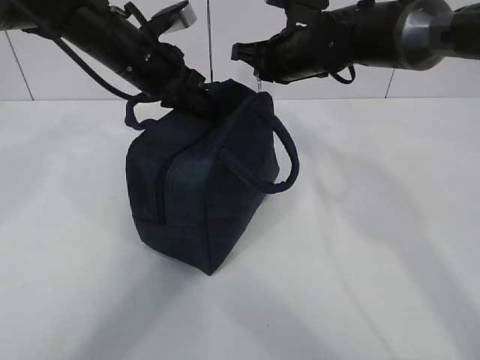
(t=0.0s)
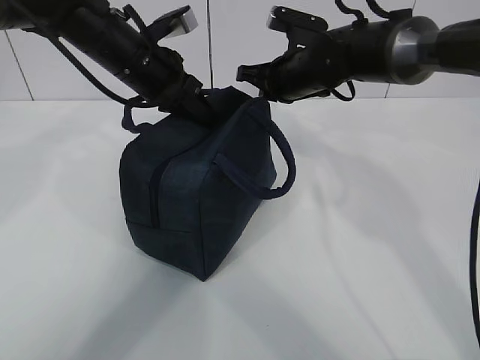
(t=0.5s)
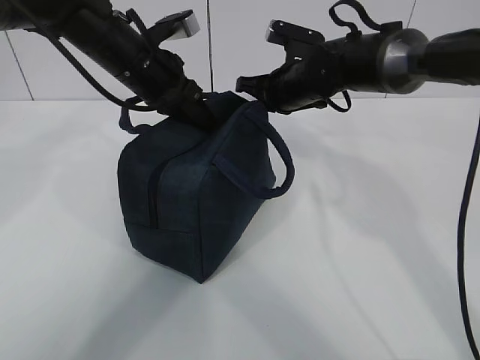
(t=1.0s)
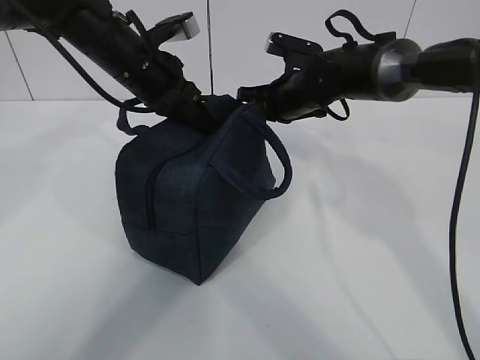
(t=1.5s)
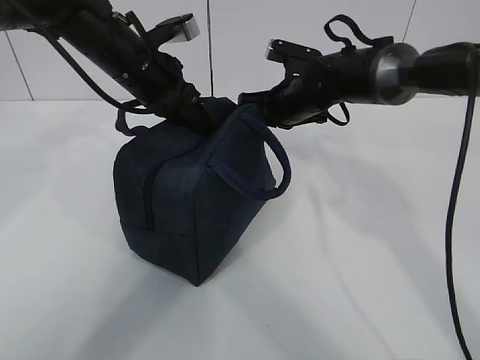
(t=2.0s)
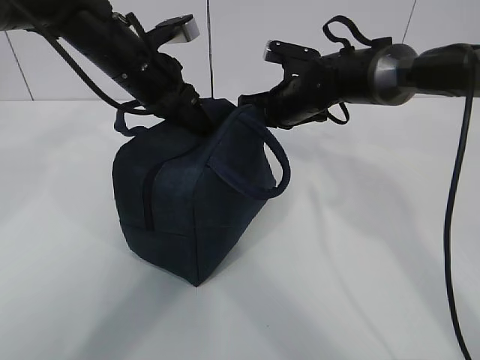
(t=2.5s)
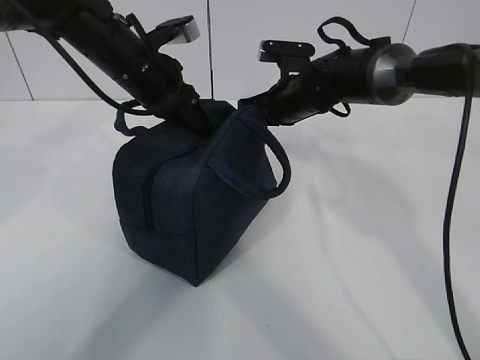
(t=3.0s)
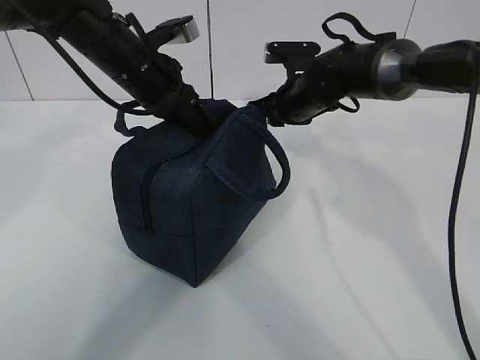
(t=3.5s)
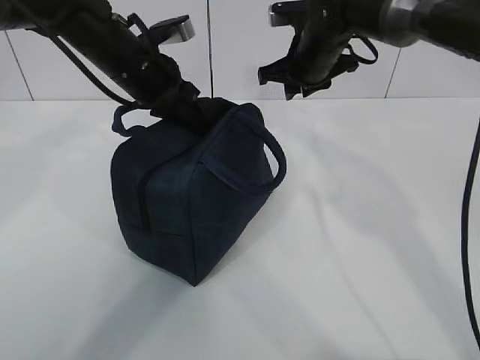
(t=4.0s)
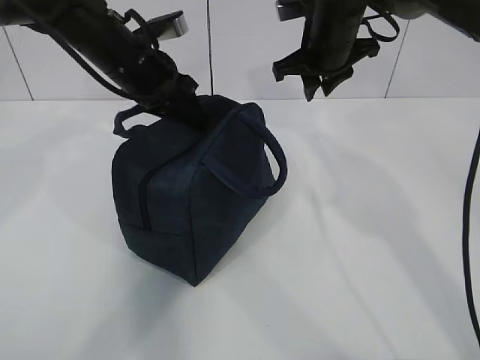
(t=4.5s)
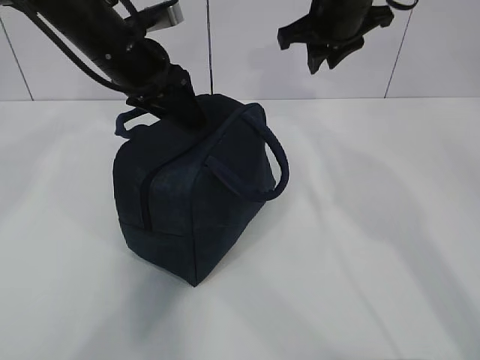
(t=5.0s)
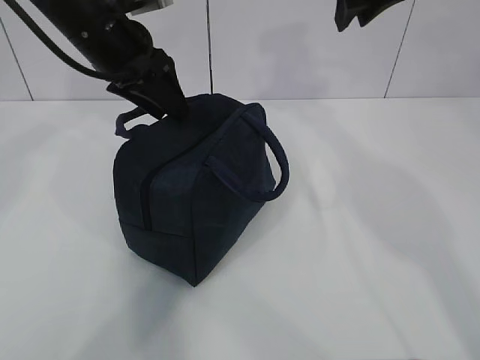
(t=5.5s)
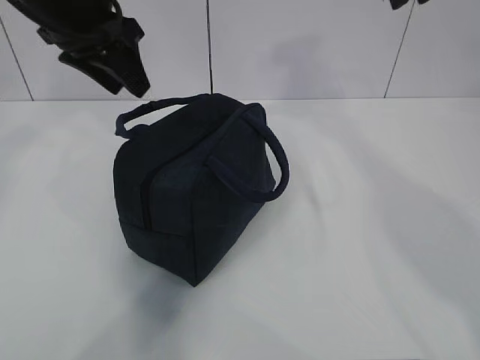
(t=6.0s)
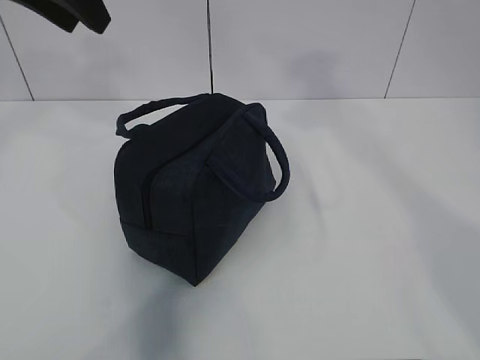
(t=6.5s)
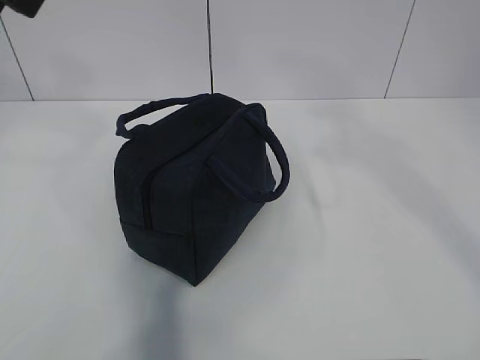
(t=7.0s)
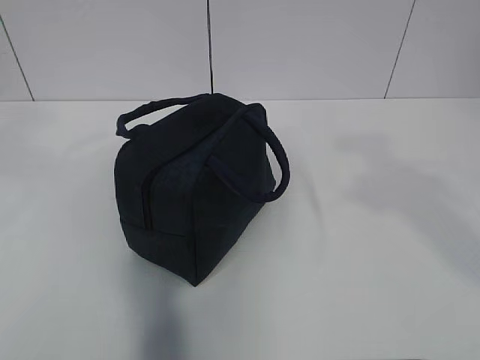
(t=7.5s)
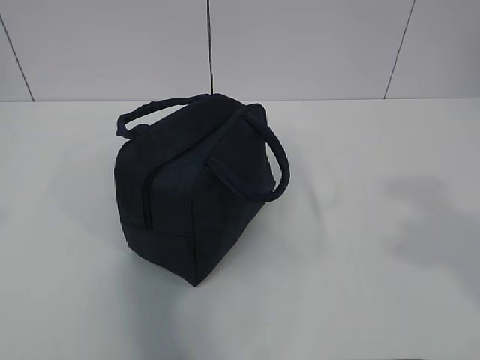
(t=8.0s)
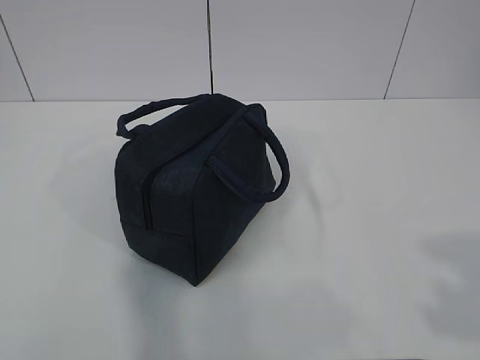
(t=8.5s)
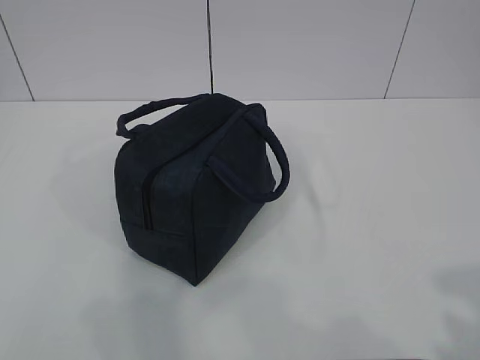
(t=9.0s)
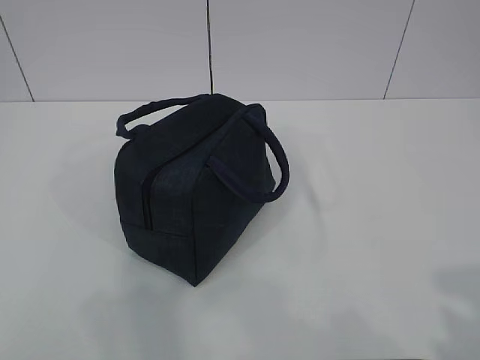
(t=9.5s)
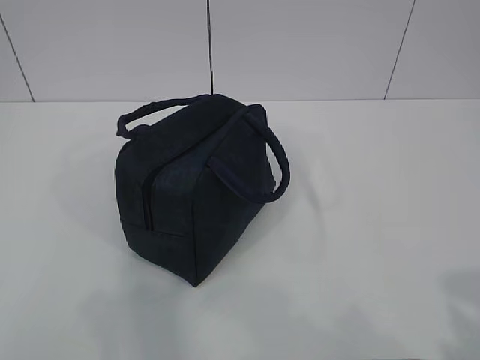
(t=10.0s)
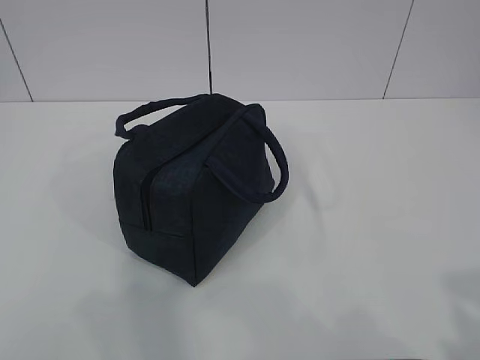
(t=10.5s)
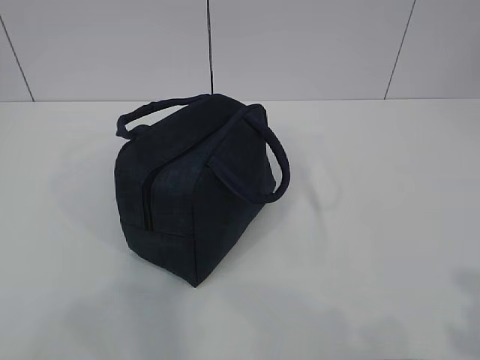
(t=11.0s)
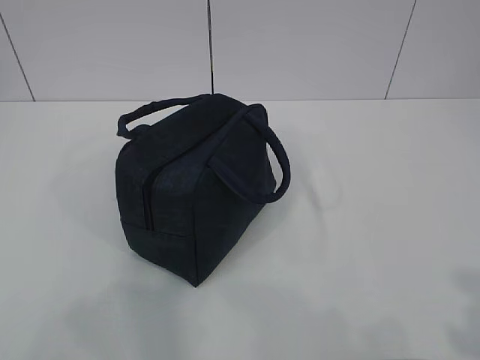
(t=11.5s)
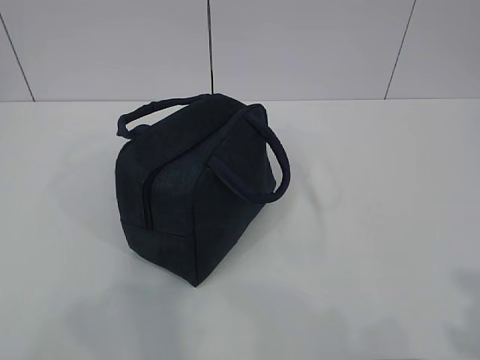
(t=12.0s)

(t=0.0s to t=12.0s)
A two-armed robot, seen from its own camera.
t=0.0s - t=2.0s: The right gripper travels downward by approximately 5 cm.
t=2.0s - t=4.0s: The right gripper goes approximately 5 cm upward, and opens up.
t=4.0s - t=6.0s: The left gripper is displaced upward by roughly 10 cm, and opens; the right gripper moves upward and backward, about 25 cm.
t=6.0s - t=8.0s: The two grippers go about 30 cm backward. The right gripper opens.
t=8.0s - t=10.0s: Both grippers travel together downward and backward, roughly 15 cm.

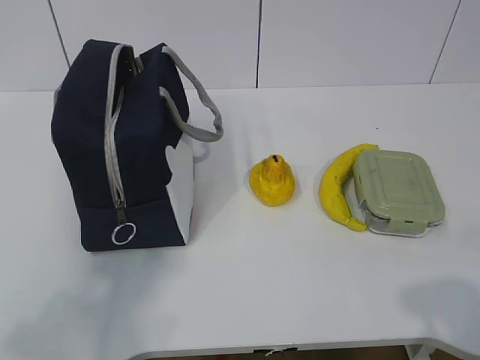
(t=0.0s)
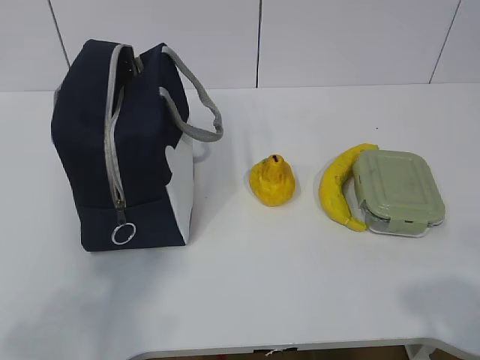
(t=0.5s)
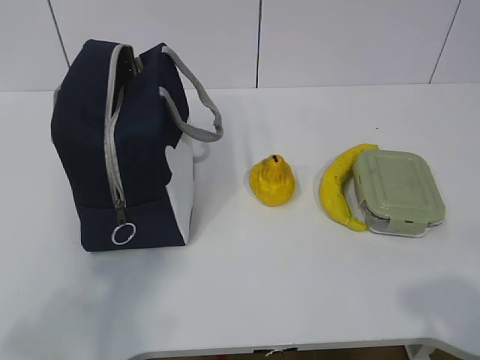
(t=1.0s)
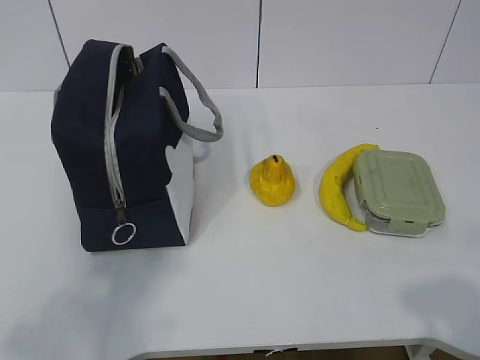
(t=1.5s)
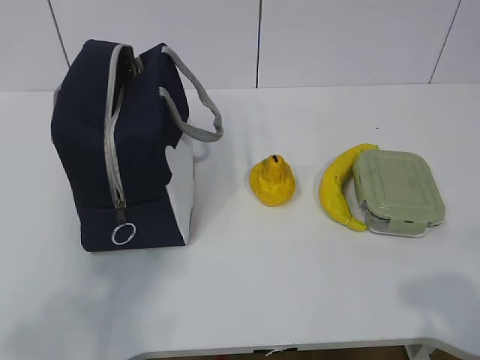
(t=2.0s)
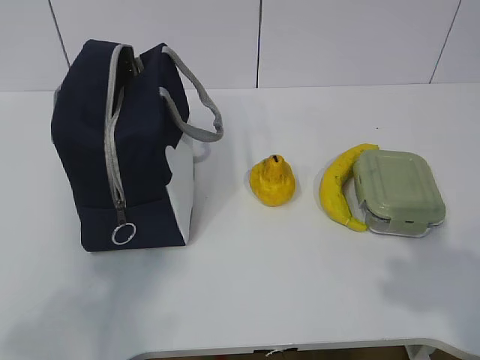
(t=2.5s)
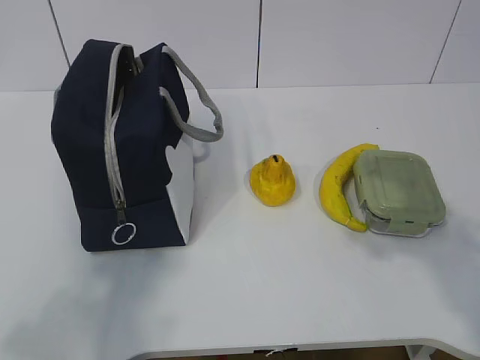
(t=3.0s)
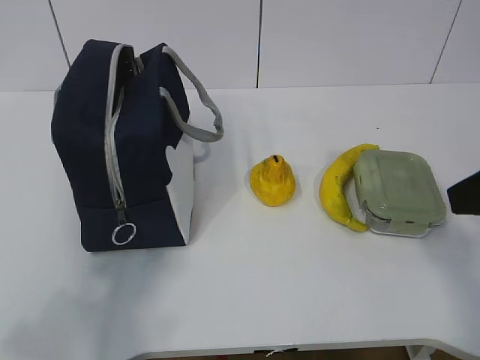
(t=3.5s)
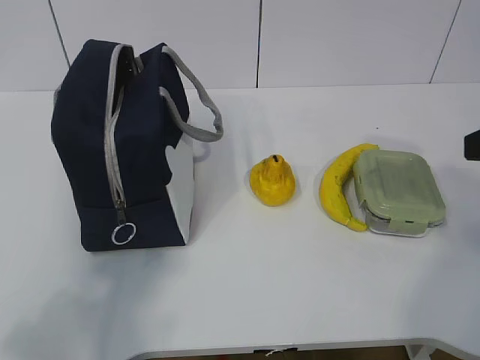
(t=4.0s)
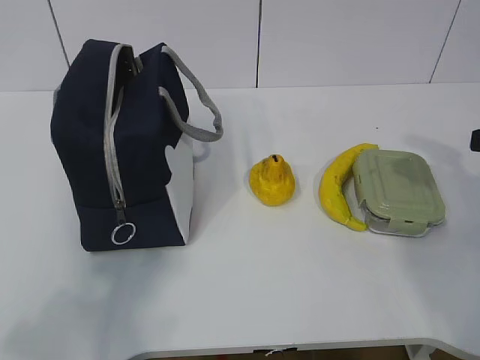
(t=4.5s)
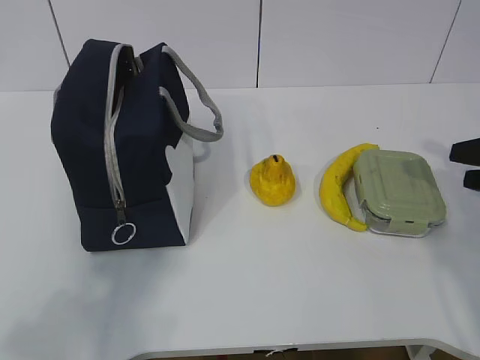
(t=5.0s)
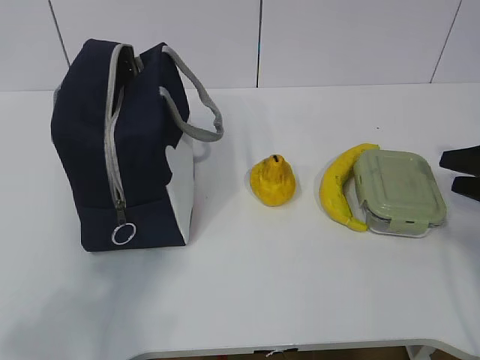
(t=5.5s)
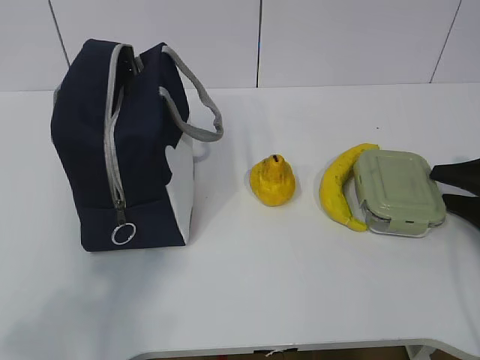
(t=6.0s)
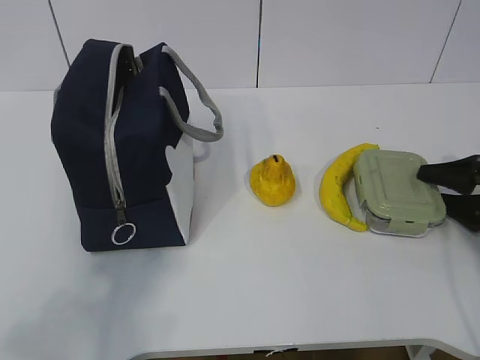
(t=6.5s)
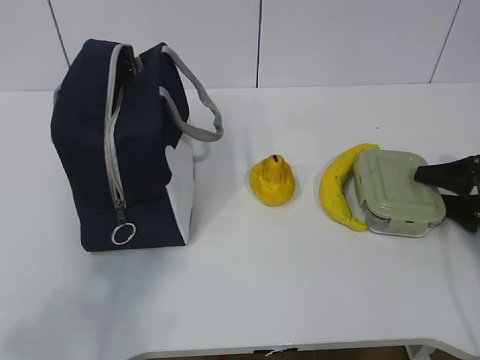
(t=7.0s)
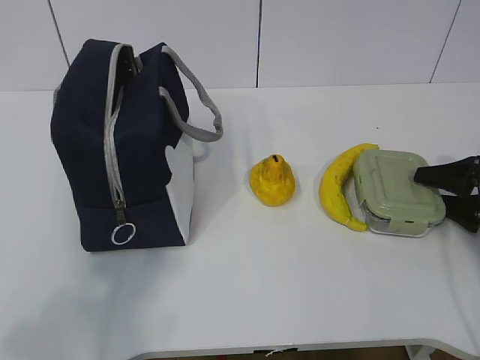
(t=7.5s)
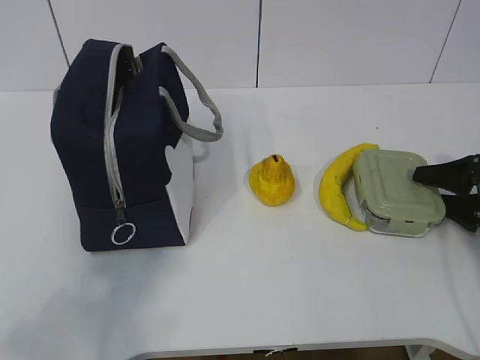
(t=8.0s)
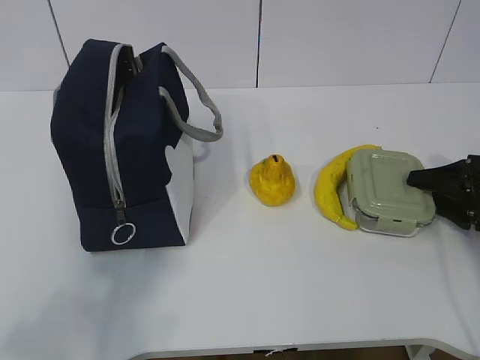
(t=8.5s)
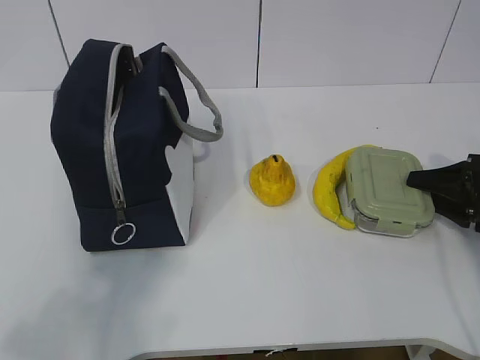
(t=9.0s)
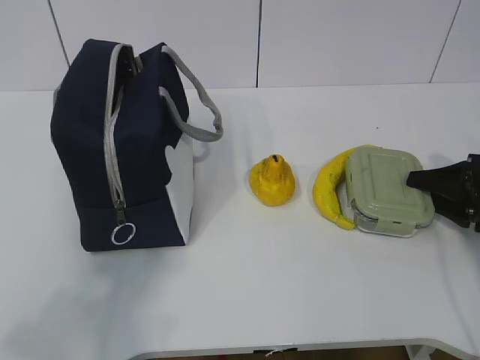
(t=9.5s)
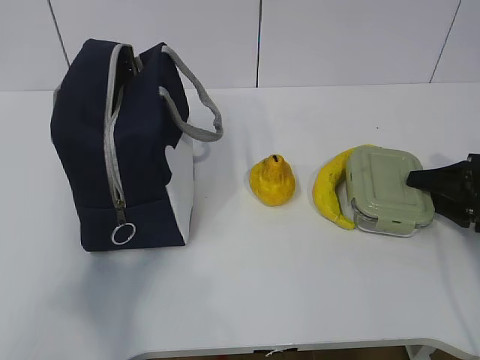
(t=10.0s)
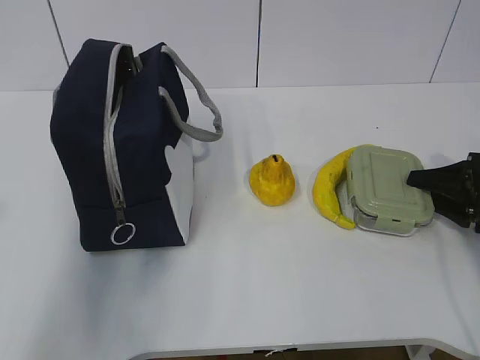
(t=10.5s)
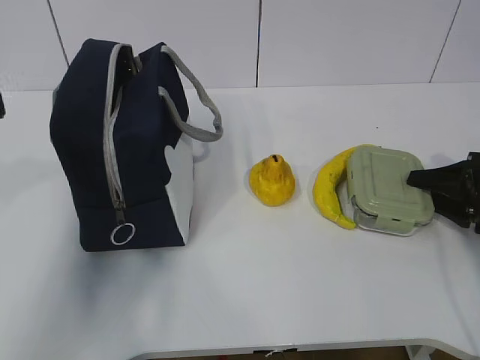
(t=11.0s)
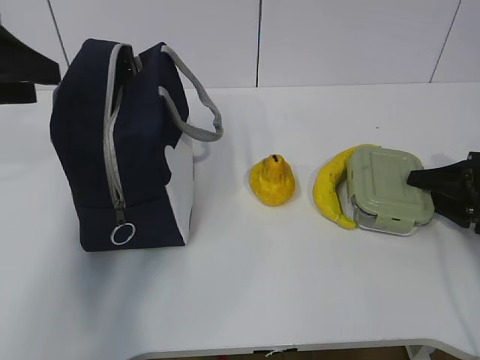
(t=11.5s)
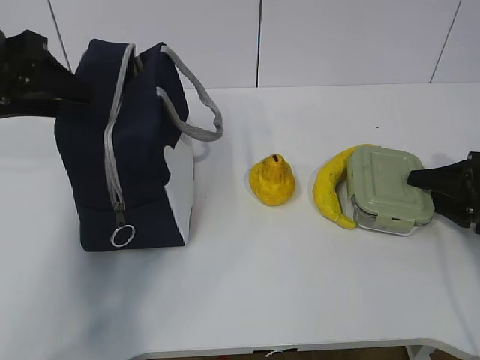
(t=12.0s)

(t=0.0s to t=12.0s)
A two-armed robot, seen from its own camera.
Step, t=0.0s - t=10.0s: Grab the lunch box with your right hand.
t=2.0s - t=4.0s: The right gripper heads forward, covering approximately 25 cm.
t=4.0s - t=6.0s: The right gripper is displaced downward, forward and to the right by about 25 cm.
t=6.0s - t=8.0s: The grippers make only small movements.
t=8.0s - t=10.0s: The right gripper closes up.
t=10.0s - t=12.0s: The left gripper heads forward, covering about 30 cm.

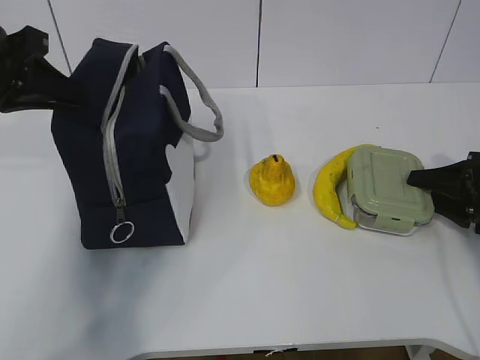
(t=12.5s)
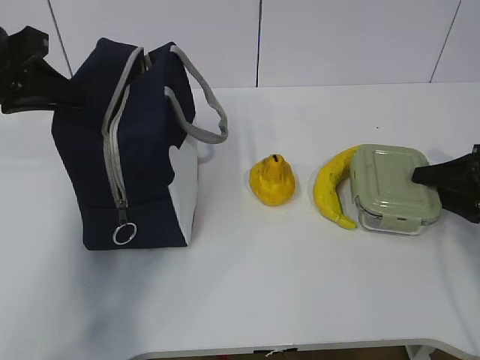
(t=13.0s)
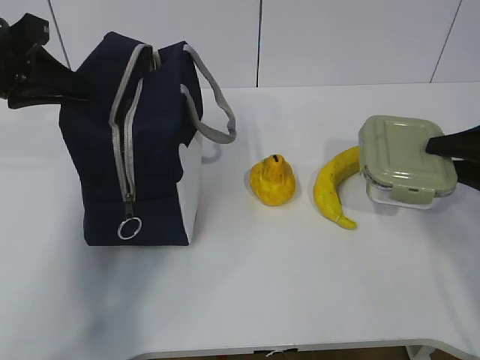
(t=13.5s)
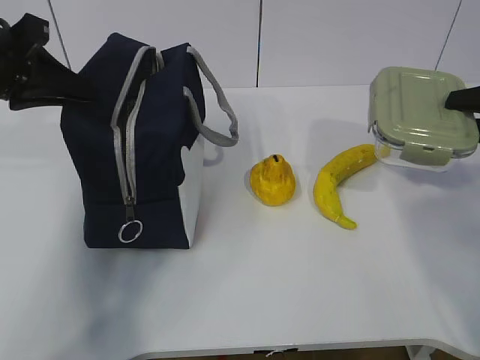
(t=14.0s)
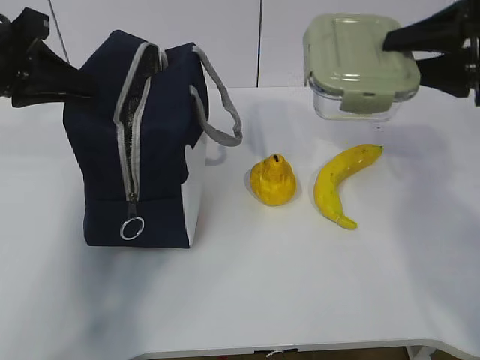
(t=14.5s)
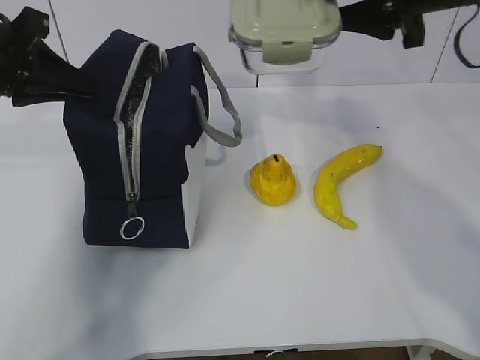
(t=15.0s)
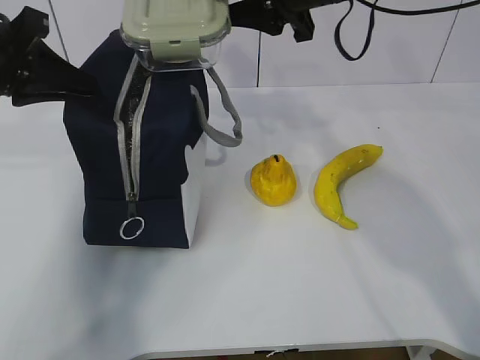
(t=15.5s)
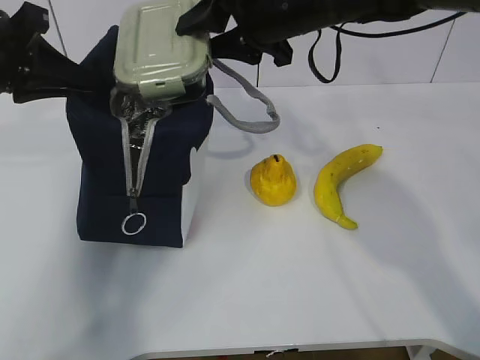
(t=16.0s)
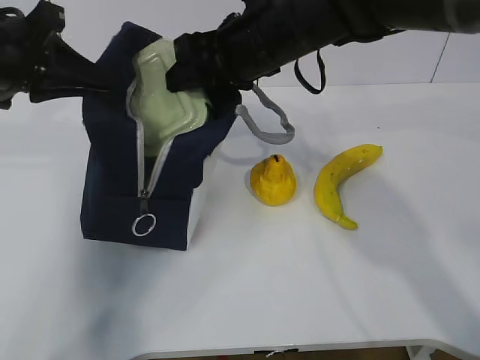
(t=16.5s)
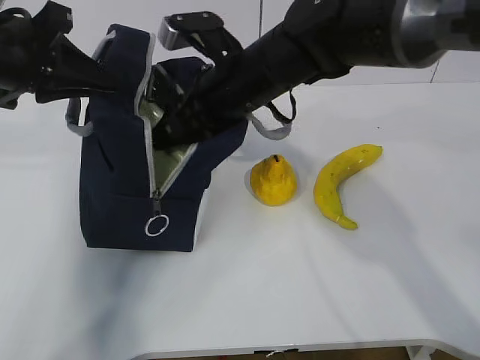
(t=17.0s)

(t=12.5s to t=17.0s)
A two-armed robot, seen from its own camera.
Step, t=13.5s - t=14.5s: Place it into the bag with your right hand.
t=12.5s - t=14.5s: The right gripper shifts about 20 cm upward and to the left.
t=14.5s - t=17.0s: The right gripper goes some 25 cm to the left.
